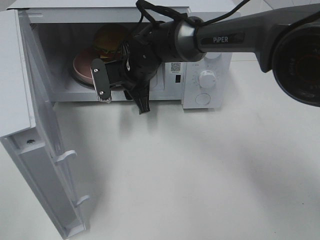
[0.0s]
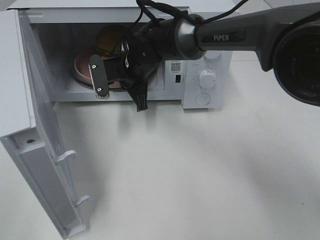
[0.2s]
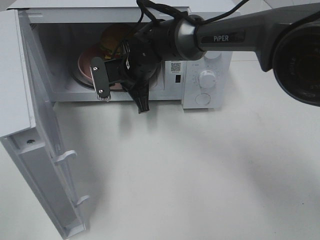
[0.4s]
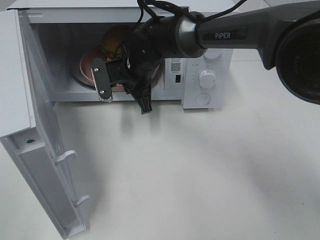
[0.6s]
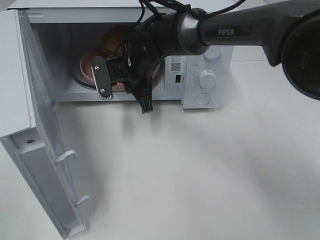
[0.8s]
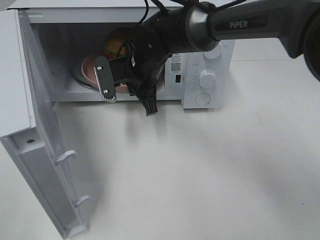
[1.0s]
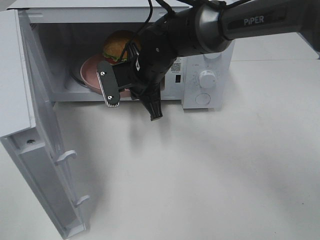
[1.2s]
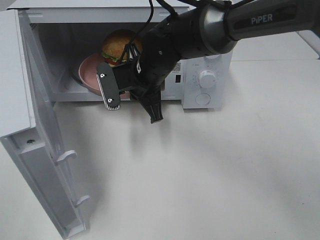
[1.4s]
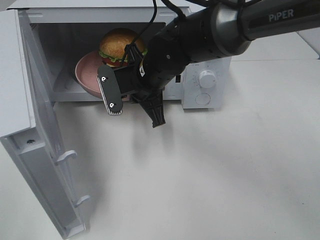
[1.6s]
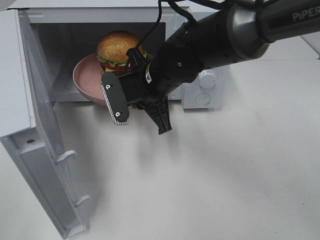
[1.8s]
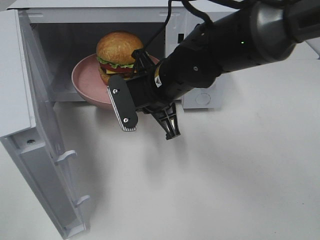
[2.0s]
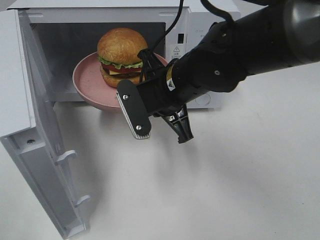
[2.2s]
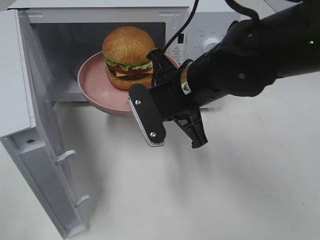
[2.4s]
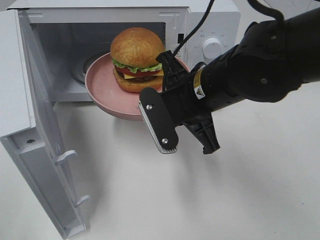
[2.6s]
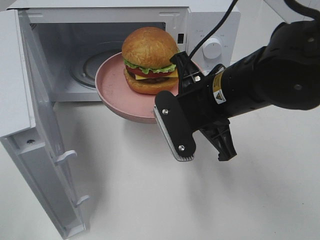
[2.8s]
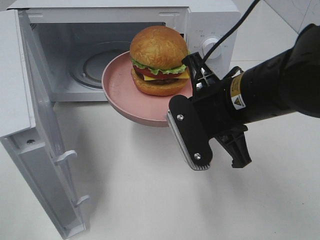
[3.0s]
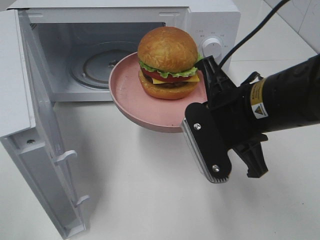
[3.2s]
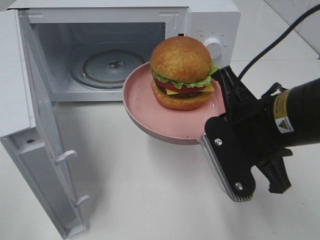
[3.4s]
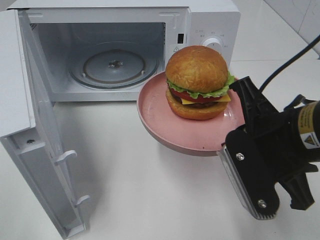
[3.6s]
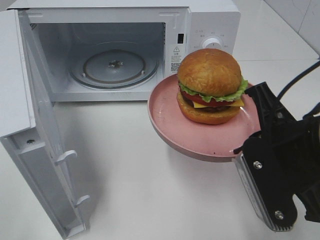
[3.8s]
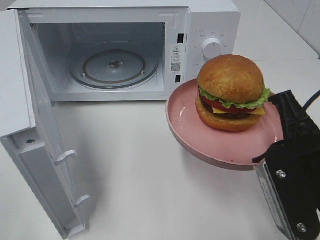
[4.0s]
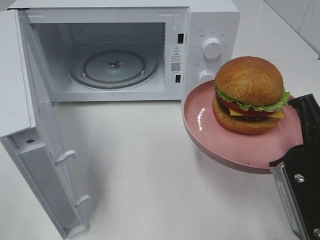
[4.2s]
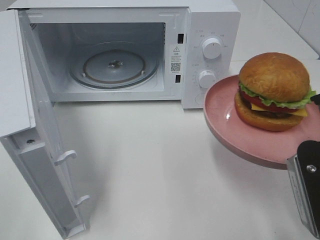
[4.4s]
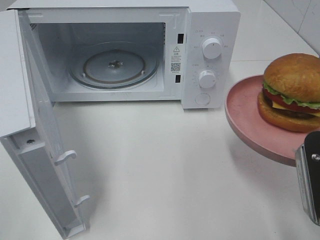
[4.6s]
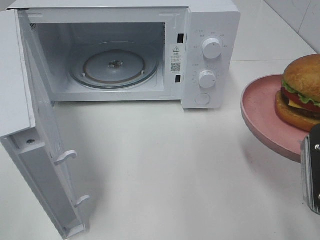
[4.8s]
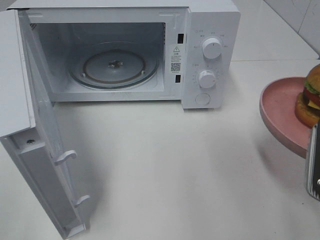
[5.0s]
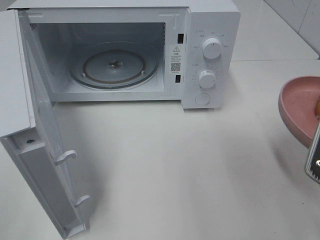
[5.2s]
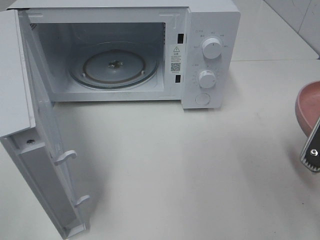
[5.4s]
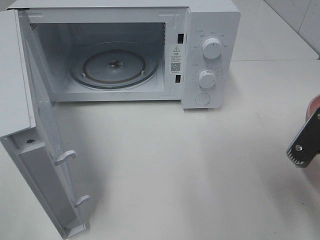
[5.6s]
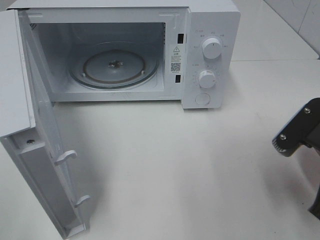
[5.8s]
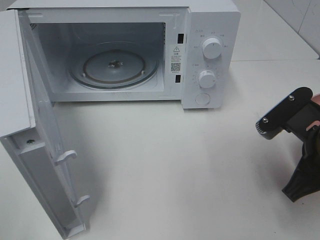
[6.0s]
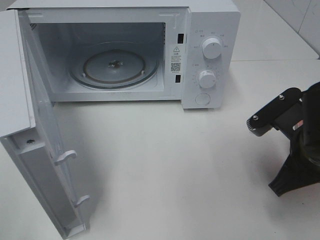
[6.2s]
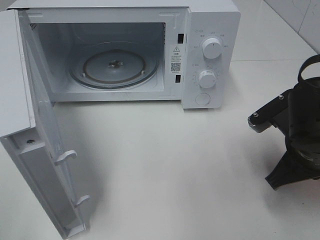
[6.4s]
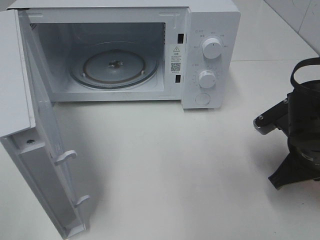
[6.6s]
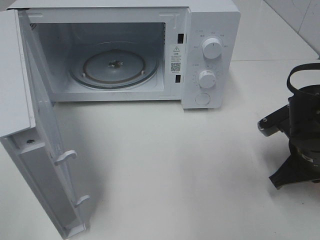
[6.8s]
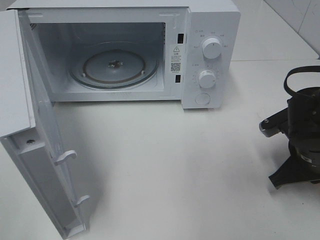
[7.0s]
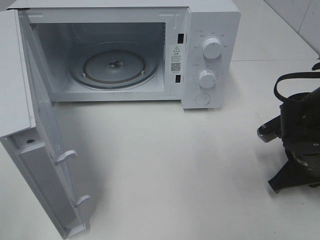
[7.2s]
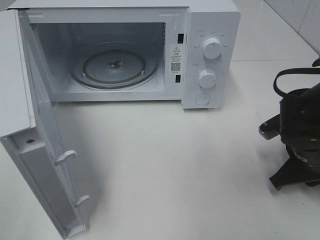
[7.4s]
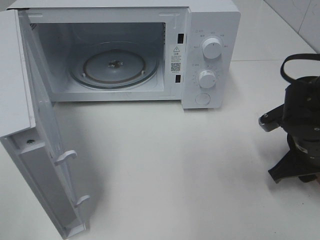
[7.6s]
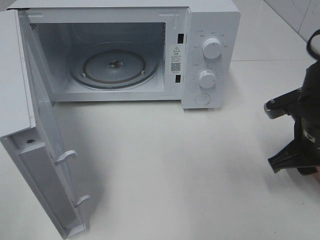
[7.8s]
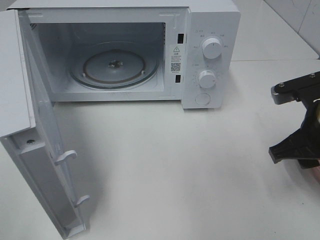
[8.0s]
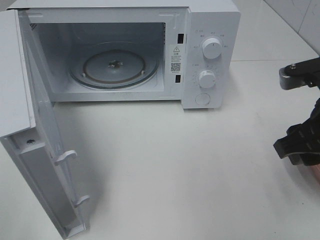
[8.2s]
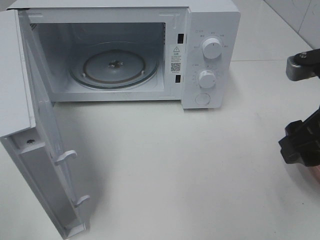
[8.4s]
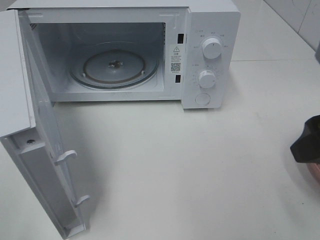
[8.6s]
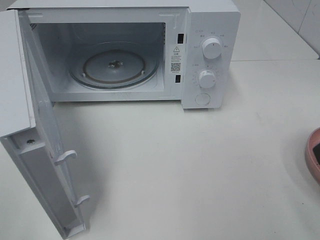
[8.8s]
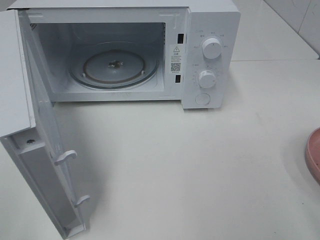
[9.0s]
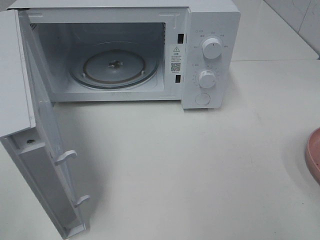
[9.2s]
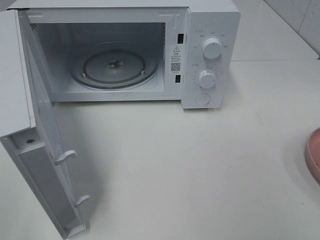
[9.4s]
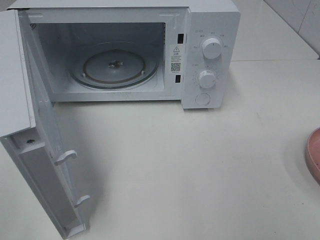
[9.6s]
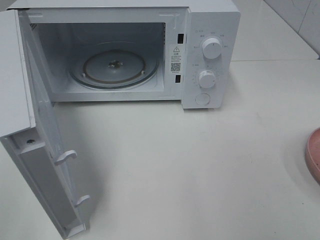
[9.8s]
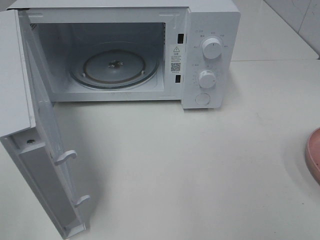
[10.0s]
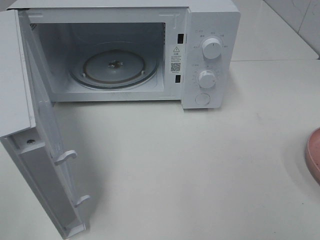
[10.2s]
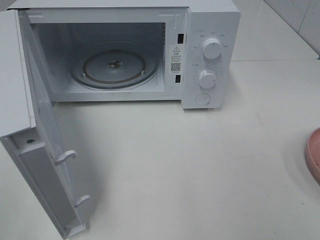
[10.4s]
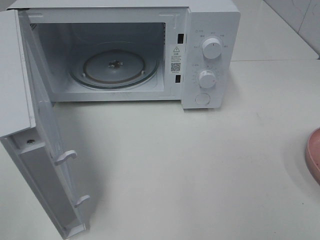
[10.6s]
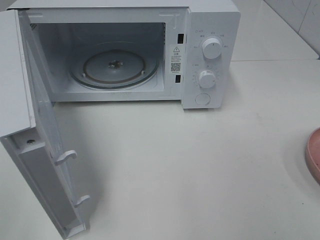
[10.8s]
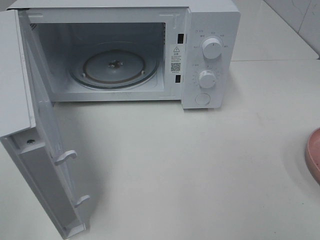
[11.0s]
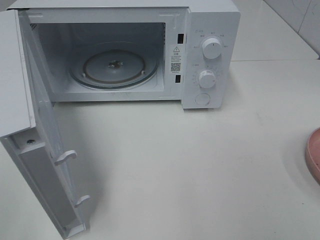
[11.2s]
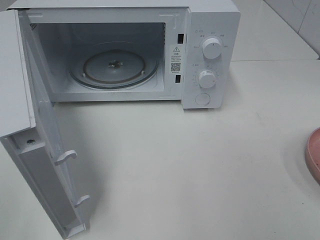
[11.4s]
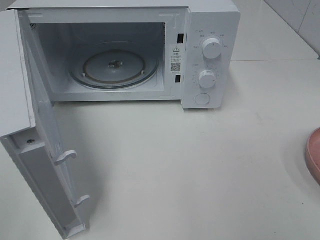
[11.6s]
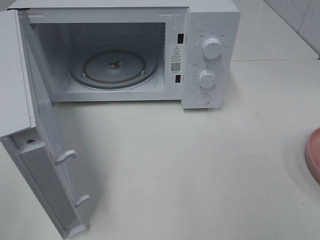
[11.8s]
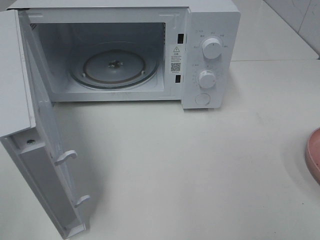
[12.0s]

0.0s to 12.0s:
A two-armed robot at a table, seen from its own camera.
Task of the whole recording: Heat the burger.
Step, 0.4s to 7.4s: Right hand: place the plate on the table.
0.0s to 1.6s: The right gripper moves backward, roughly 5 cm, and closes its fingers.
1.6s to 3.0s: The right gripper shifts approximately 15 cm backward and to the right.
3.0s to 4.4s: The right gripper travels to the right and backward by roughly 15 cm.
4.4s to 6.0s: The right gripper heads forward, covering some 5 cm.
6.0s to 7.6s: The right gripper is displaced forward and downward by some 10 cm, and opens.
7.6s to 9.0s: The right gripper heads upward and backward, covering roughly 25 cm, and opens up.
10.4s to 12.0s: Both grippers stay put.

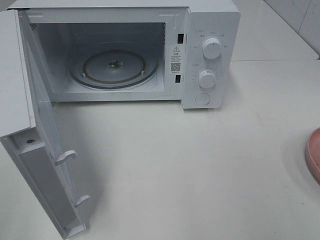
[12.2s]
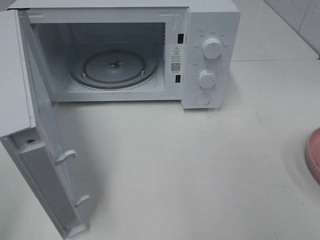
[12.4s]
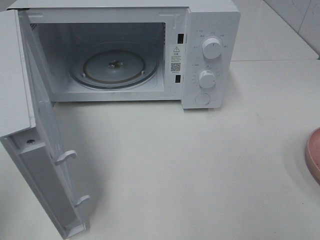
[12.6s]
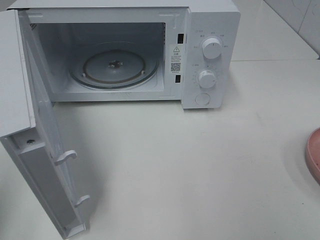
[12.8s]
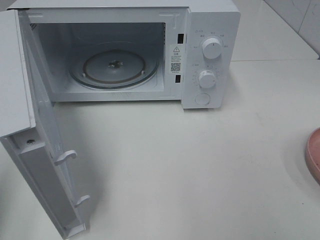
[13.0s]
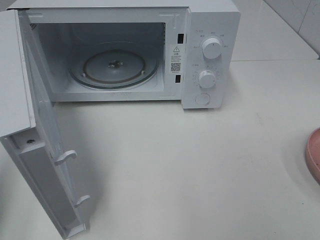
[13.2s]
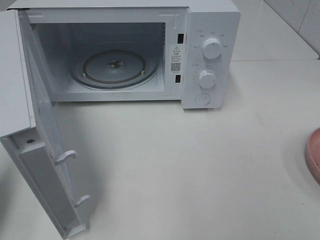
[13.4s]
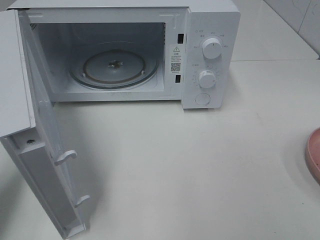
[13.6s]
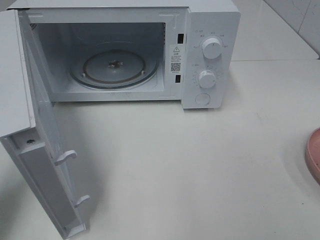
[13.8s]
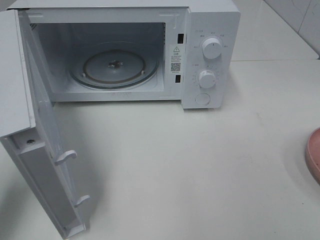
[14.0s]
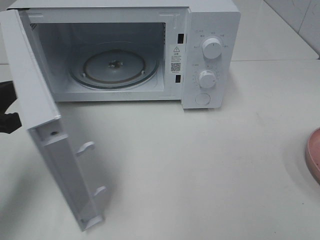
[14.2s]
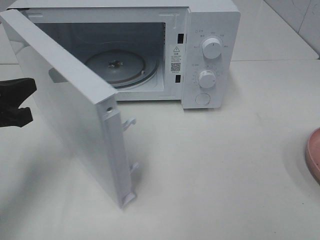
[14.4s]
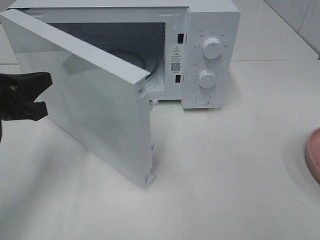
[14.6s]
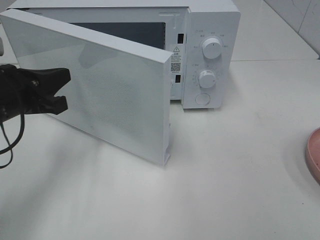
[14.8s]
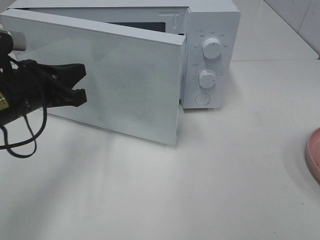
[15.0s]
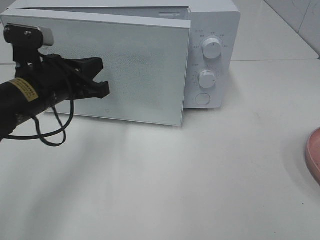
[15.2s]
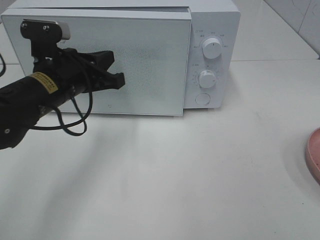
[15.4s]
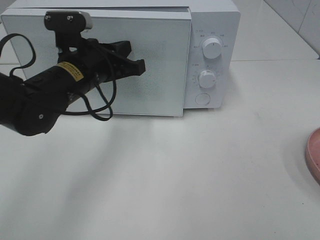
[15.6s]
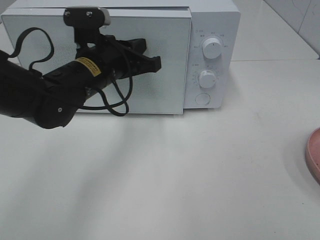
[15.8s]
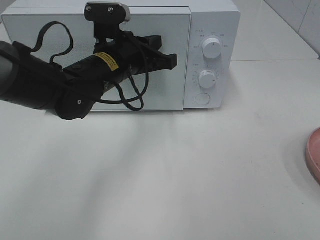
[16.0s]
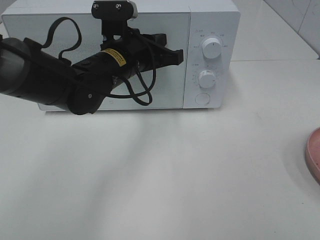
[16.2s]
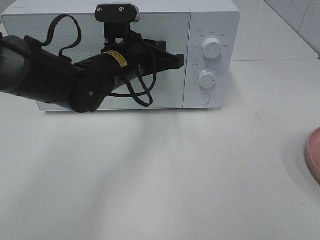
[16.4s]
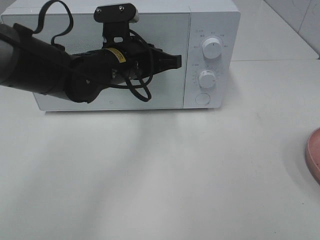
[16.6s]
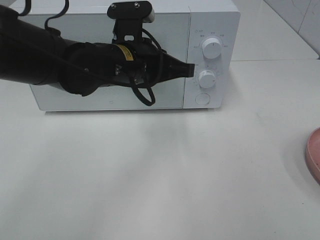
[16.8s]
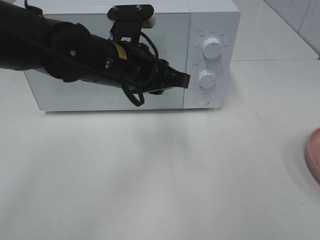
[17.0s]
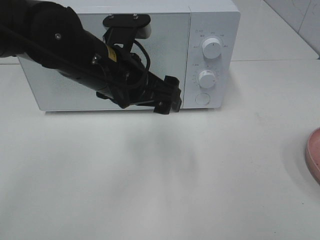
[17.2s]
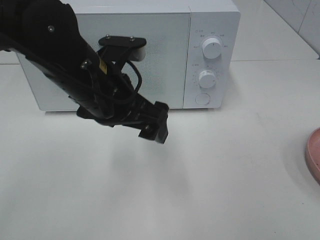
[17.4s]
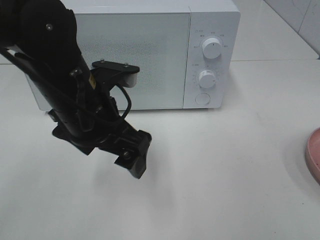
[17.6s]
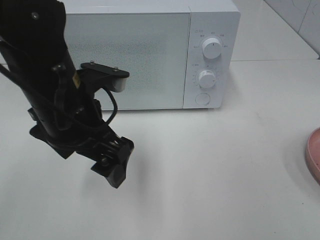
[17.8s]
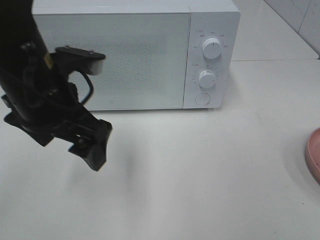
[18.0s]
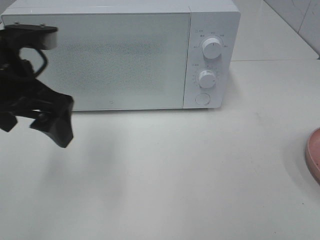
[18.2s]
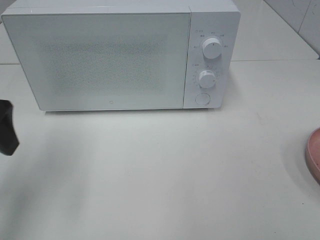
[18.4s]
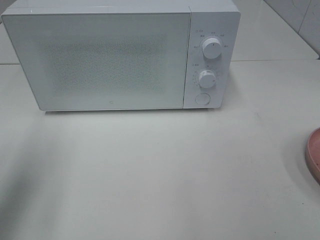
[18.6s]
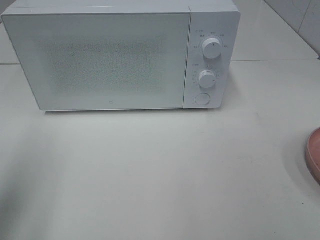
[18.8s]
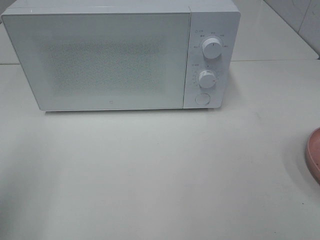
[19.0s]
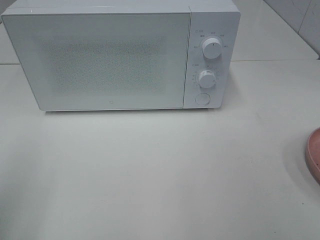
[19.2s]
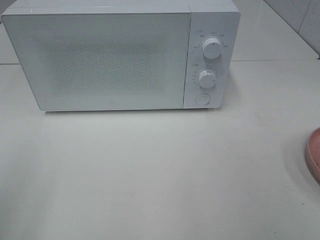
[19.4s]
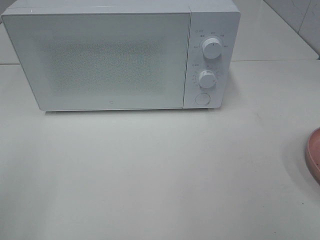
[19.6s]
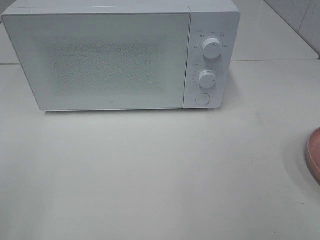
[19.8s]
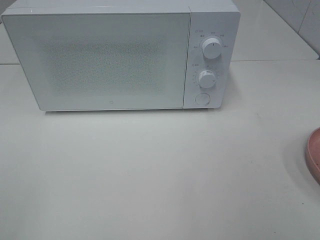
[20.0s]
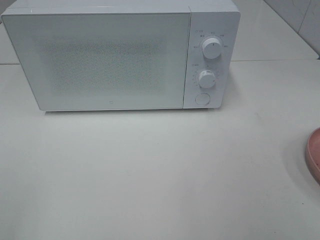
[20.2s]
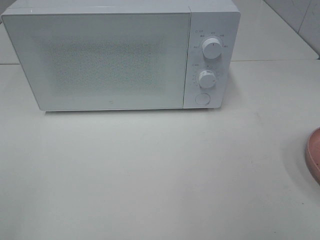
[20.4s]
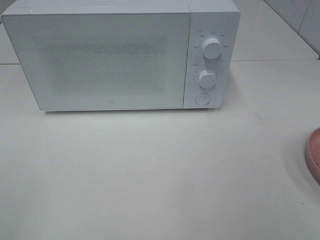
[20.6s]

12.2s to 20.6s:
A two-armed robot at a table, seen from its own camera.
Task of the whole recording: Heat the burger.
Step, 12.2s to 16.6s: Left hand: close the microwave door.
12.2s to 13.6s: The left gripper travels forward and downward by approximately 15 cm, and closes.
13.6s to 15.0s: The left gripper heads to the right and forward, covering roughly 15 cm.
15.0s to 16.4s: The left gripper moves to the right and forward, roughly 15 cm.
16.4s to 17.8s: The left gripper travels backward and to the left by approximately 15 cm, and opens up.
17.8s to 19.2s: The left gripper shifts about 25 cm to the left and backward.

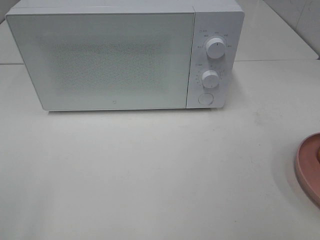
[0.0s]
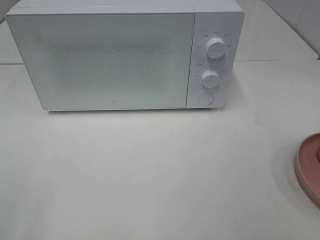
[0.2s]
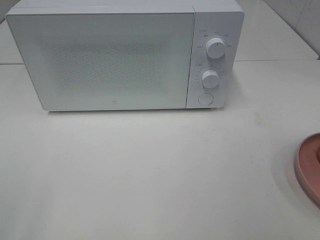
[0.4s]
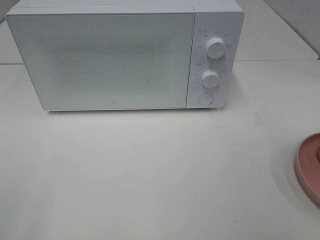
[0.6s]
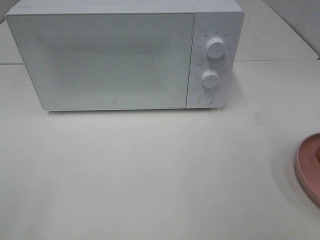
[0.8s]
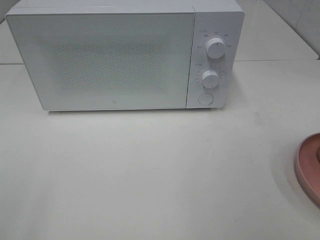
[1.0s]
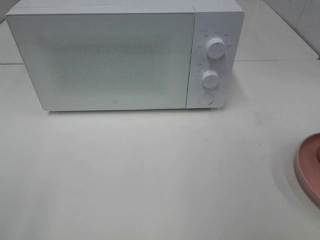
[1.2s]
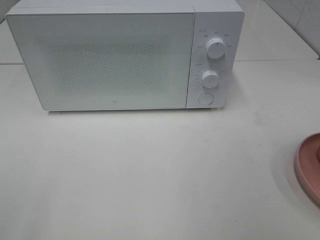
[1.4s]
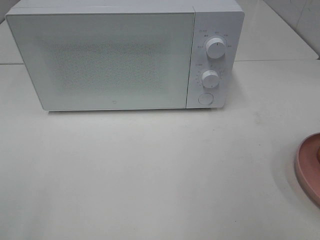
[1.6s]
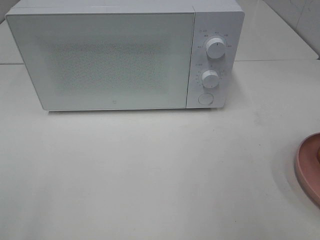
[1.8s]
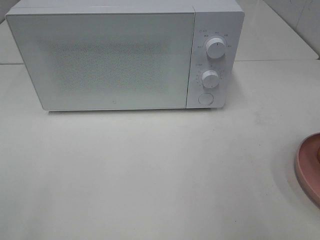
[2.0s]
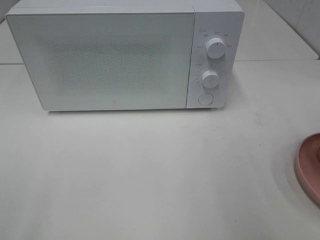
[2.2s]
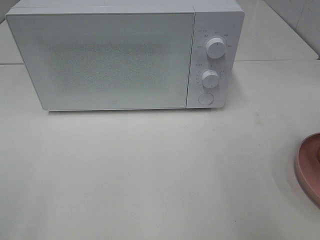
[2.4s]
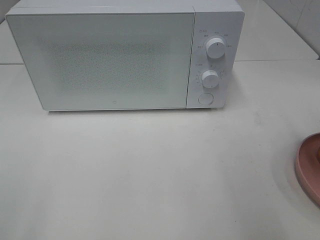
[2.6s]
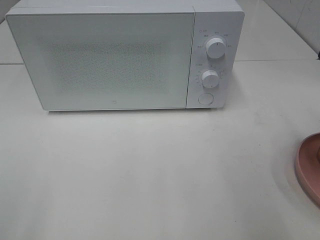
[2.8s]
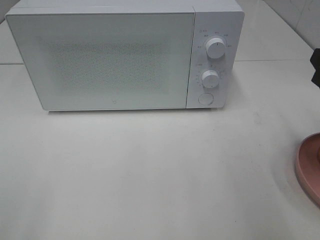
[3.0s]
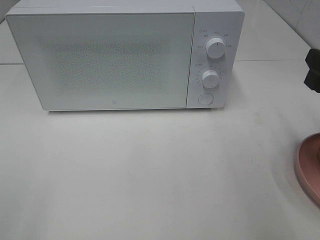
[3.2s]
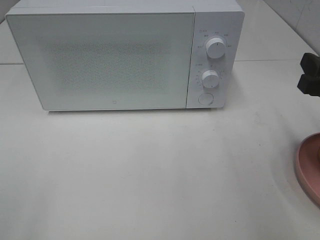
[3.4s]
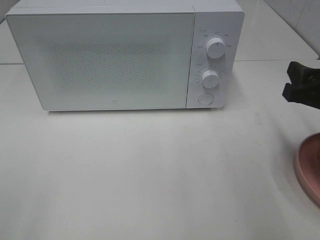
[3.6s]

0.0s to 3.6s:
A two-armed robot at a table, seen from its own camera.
Task of the whole recording: Heat the burger.
1.8s to 3.6s: The right gripper shifts about 15 cm downward and forward.
